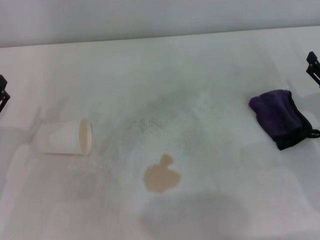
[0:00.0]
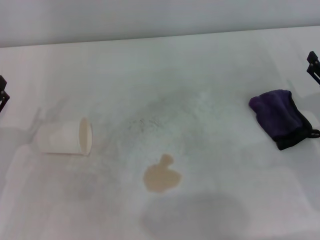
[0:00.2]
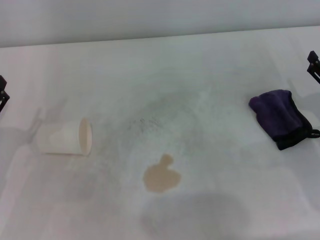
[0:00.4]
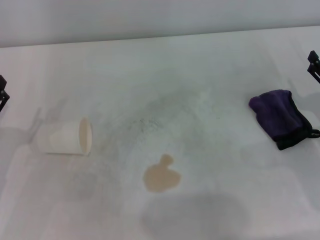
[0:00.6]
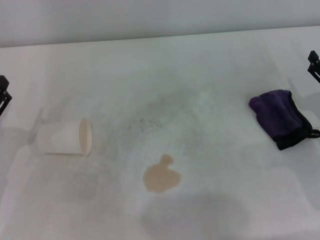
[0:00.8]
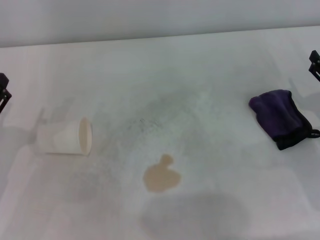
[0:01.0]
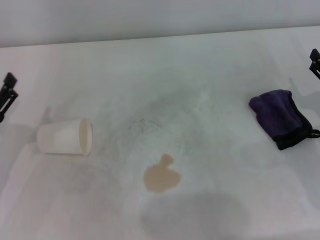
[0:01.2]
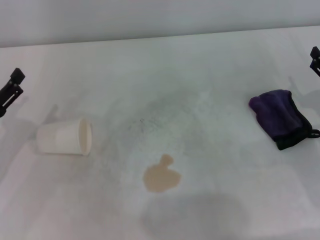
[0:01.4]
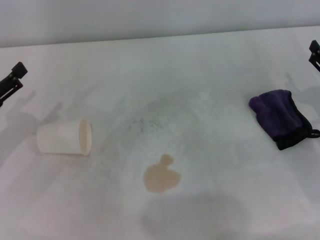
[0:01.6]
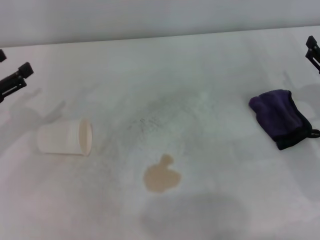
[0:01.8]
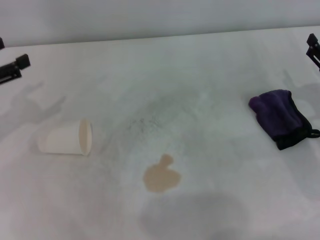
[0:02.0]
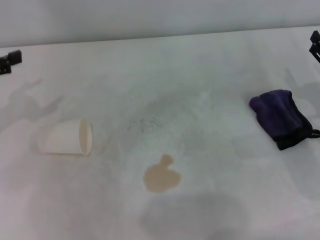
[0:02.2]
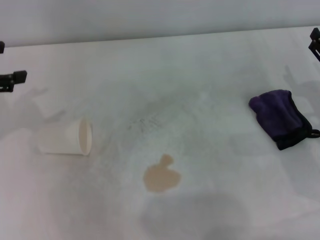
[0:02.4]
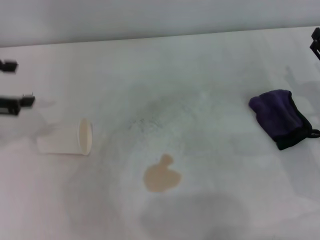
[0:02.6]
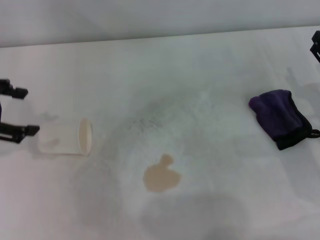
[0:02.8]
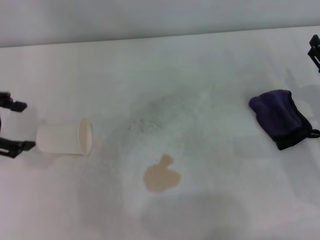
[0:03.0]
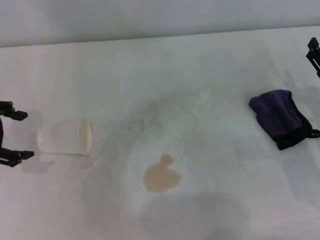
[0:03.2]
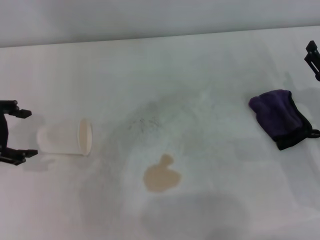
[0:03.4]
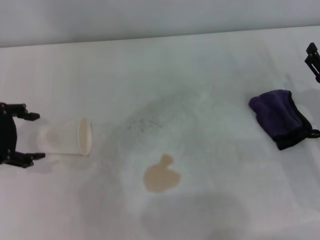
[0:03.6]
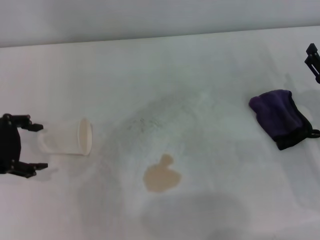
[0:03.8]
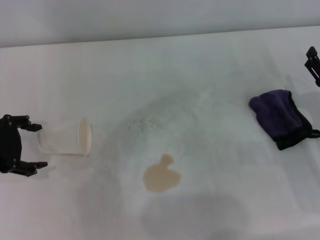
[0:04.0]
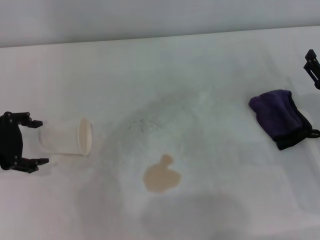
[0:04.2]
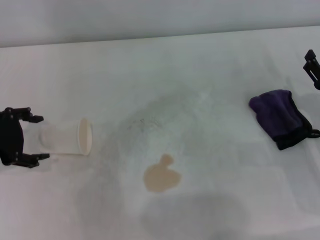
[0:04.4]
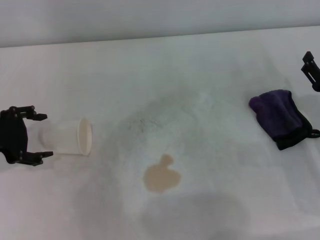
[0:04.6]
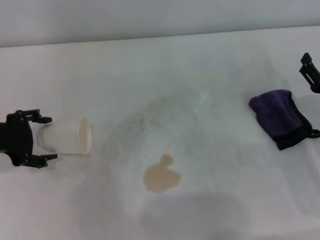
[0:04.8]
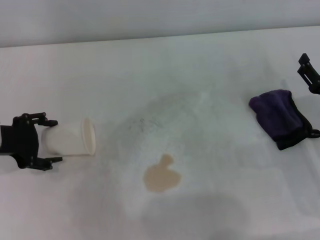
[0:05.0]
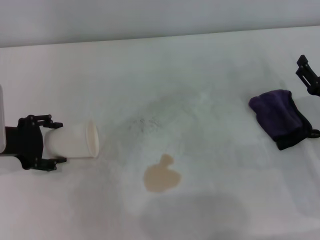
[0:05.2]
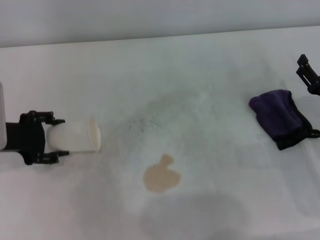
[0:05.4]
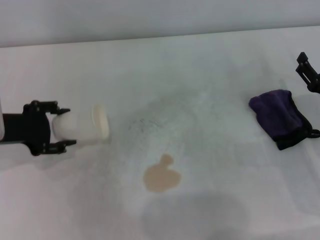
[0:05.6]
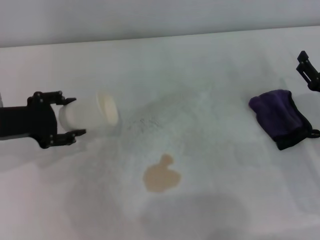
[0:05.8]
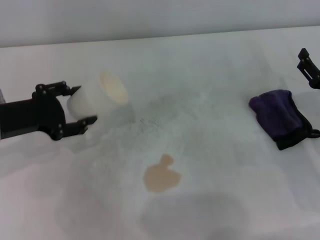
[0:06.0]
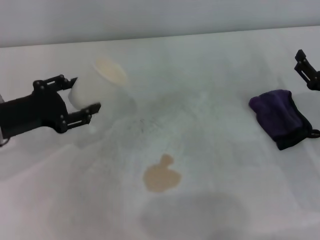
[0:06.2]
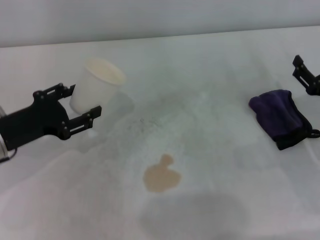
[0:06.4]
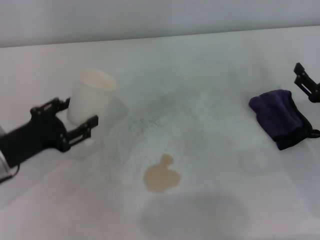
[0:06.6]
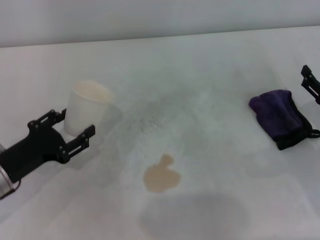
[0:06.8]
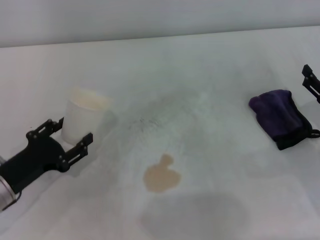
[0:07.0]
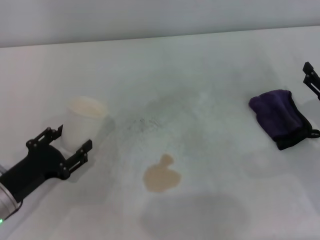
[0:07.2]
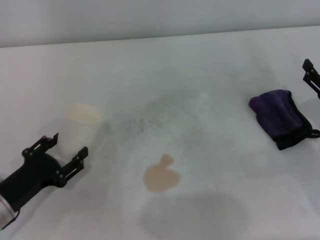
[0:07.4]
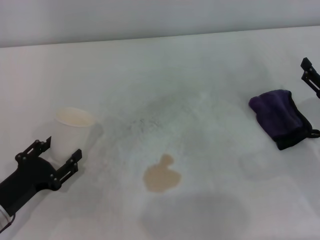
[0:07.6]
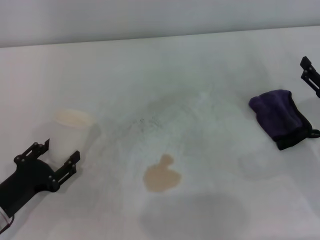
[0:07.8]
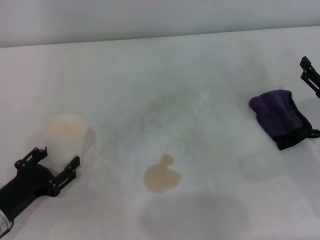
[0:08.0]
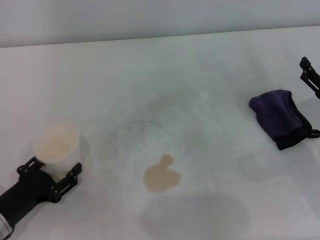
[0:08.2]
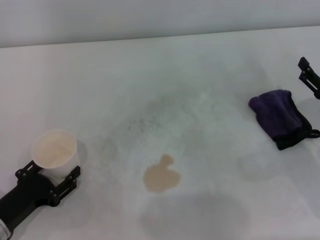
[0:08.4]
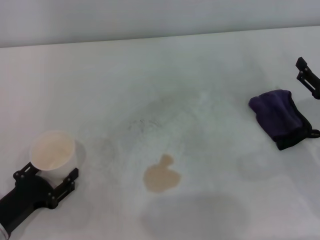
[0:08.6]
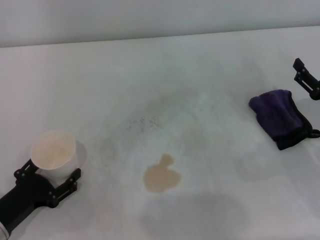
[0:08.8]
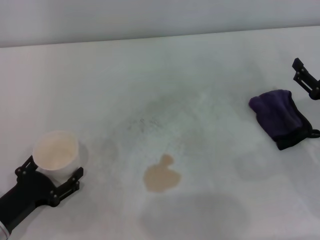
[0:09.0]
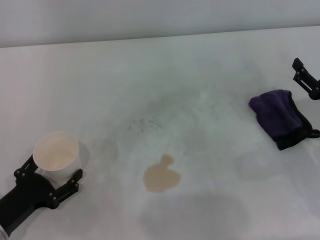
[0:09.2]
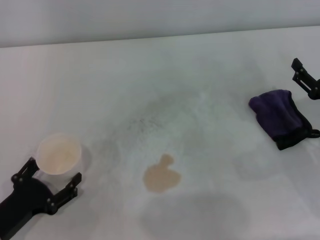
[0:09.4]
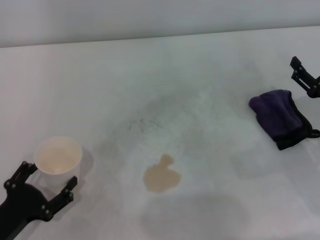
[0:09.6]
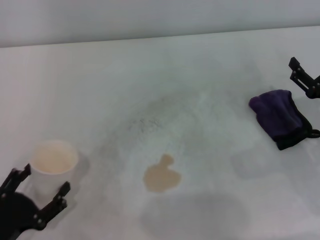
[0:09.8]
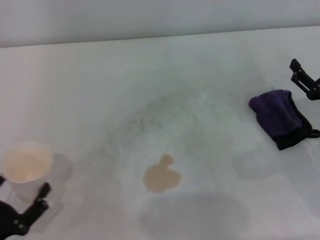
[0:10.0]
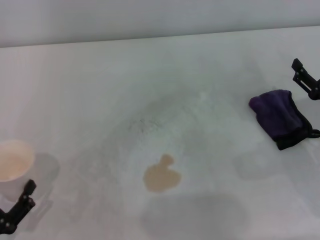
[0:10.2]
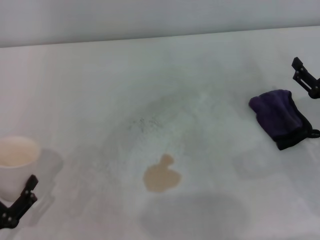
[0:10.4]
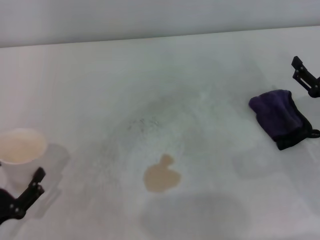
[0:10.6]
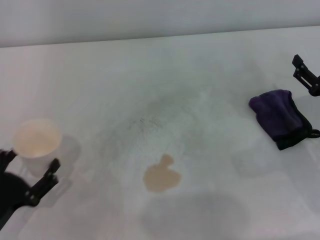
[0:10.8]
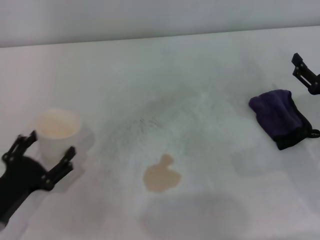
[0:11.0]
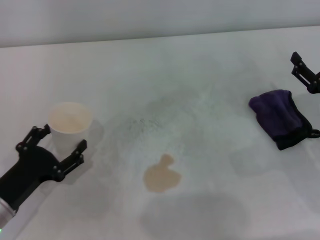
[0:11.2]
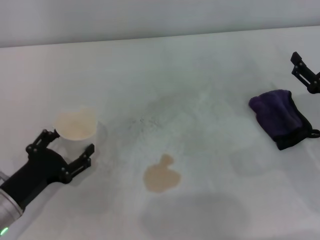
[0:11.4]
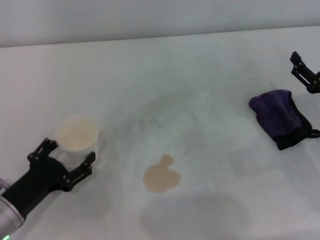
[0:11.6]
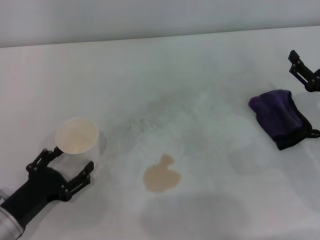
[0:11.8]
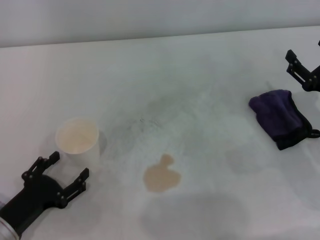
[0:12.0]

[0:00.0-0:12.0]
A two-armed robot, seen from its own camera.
Step, 0:00.0 to 0:05.2: Grasp the paper cup with the left gripper.
Step, 0:05.4 to 0:11.6: Stand the paper cup upright with the left gripper.
0:00.0 to 0:01.6: The left gripper moves about 5 cm.
0:01.6 to 0:03.0: The left gripper goes approximately 15 cm upward.
0:03.0 to 0:04.4: The left gripper is displaced downward by roughly 5 cm.
0:04.4 to 0:06.0: The left gripper closes up.
0:06.0 to 0:07.6: The left gripper is displaced downward and backward by roughly 15 cm.
0:07.6 to 0:09.0: The left gripper opens up.
0:09.0 to 0:10.4: The left gripper is displaced backward by about 10 cm.
0:10.4 to 0:12.0: The left gripper is displaced forward by some 5 cm.

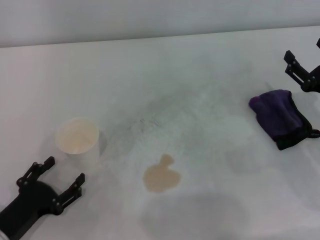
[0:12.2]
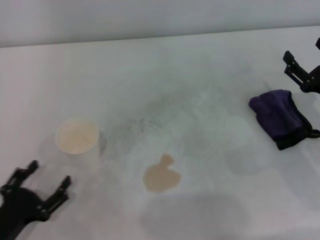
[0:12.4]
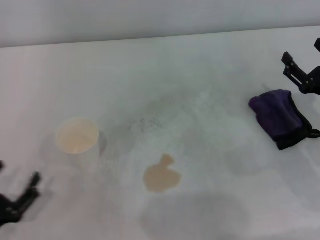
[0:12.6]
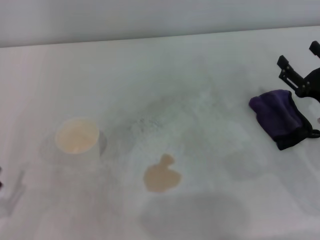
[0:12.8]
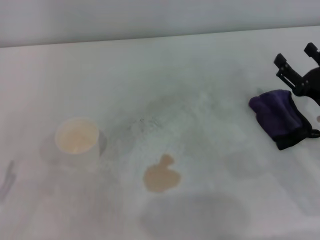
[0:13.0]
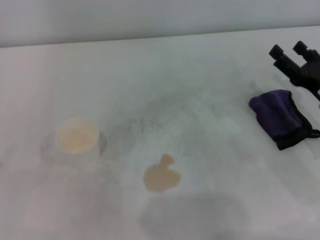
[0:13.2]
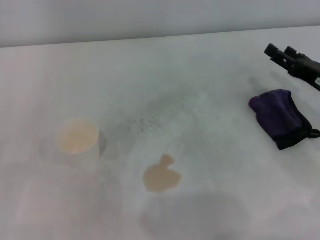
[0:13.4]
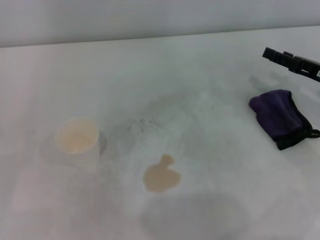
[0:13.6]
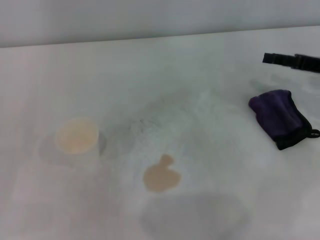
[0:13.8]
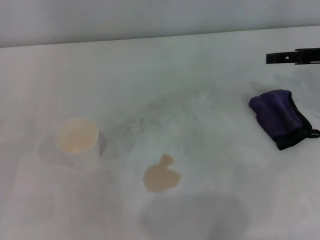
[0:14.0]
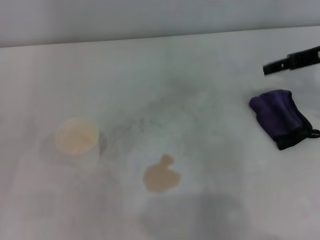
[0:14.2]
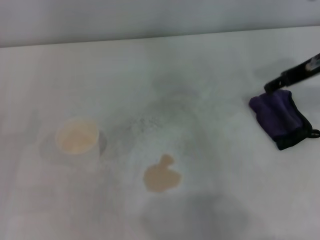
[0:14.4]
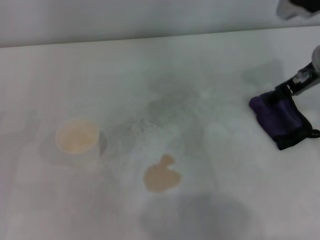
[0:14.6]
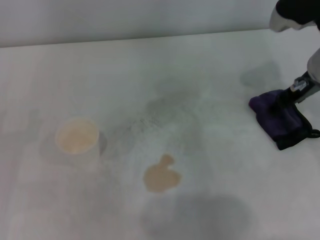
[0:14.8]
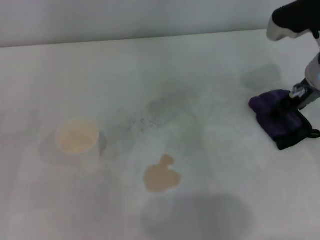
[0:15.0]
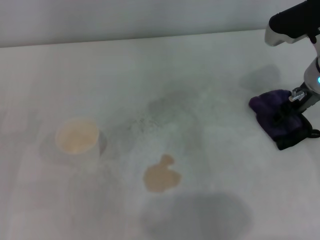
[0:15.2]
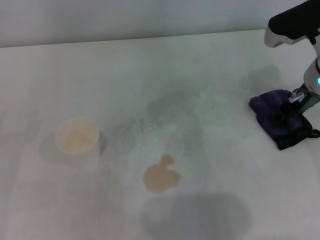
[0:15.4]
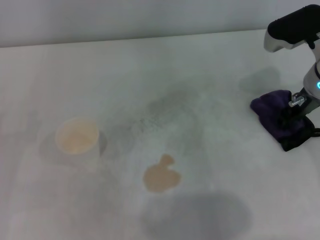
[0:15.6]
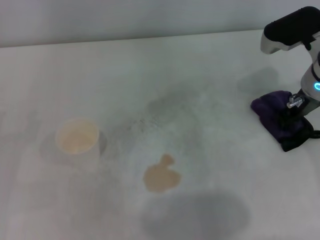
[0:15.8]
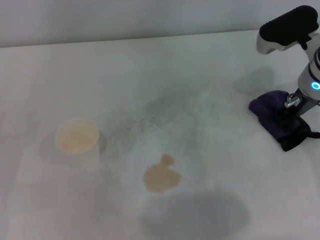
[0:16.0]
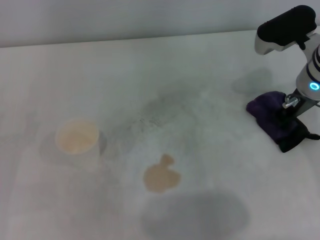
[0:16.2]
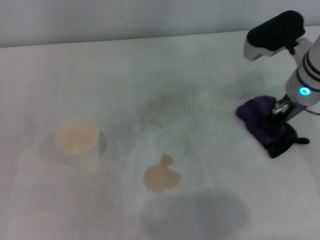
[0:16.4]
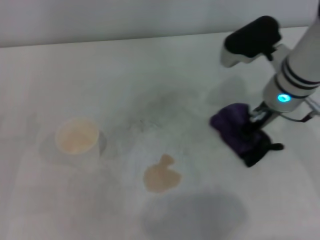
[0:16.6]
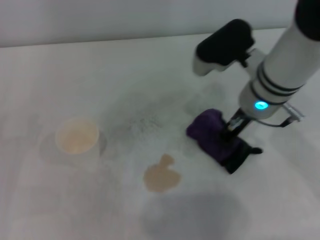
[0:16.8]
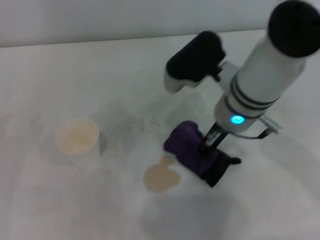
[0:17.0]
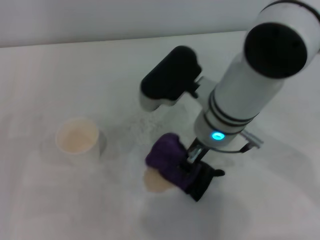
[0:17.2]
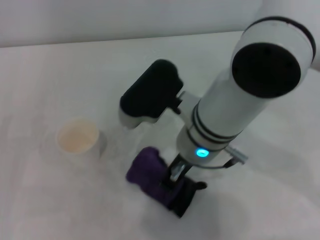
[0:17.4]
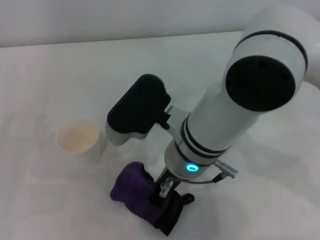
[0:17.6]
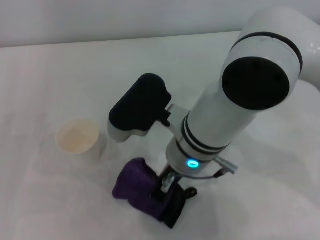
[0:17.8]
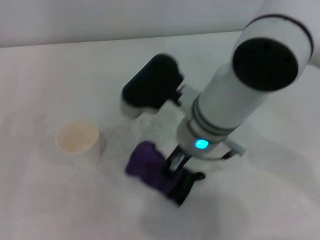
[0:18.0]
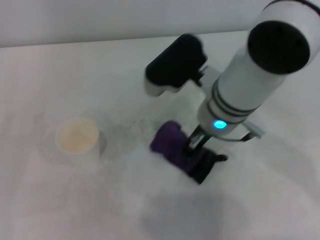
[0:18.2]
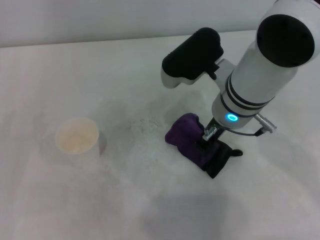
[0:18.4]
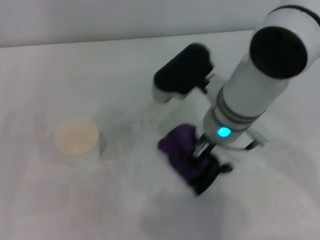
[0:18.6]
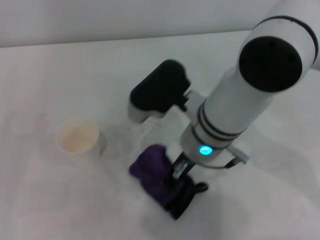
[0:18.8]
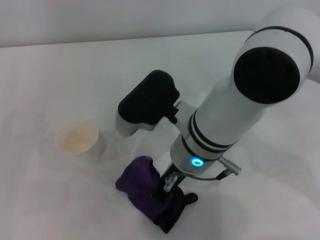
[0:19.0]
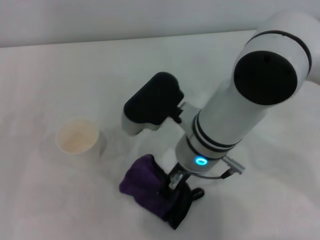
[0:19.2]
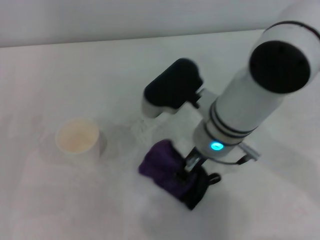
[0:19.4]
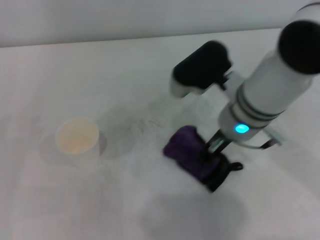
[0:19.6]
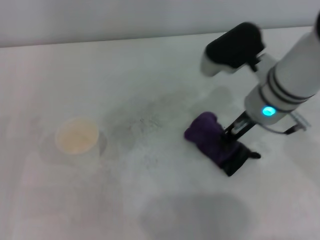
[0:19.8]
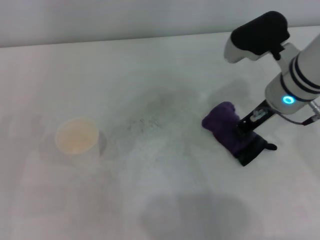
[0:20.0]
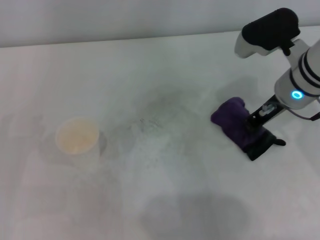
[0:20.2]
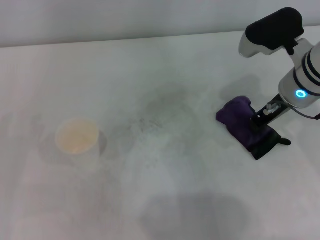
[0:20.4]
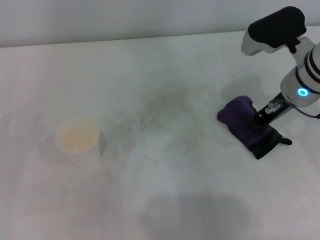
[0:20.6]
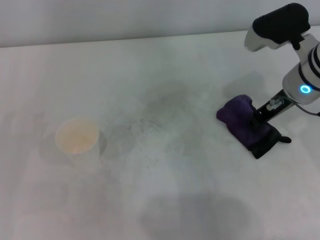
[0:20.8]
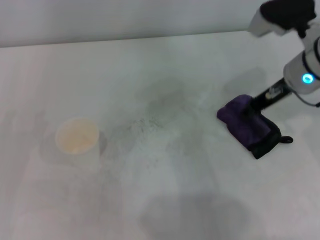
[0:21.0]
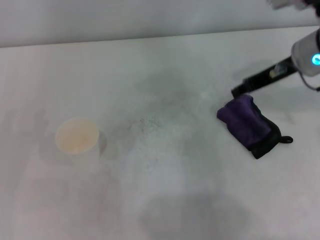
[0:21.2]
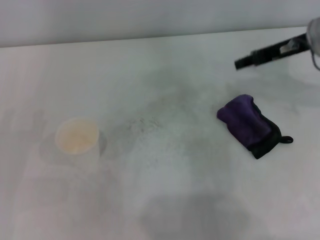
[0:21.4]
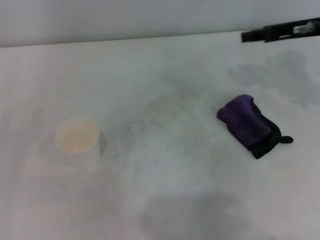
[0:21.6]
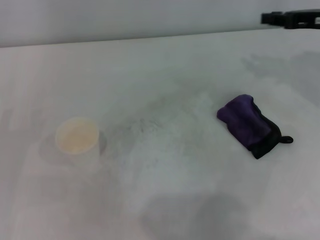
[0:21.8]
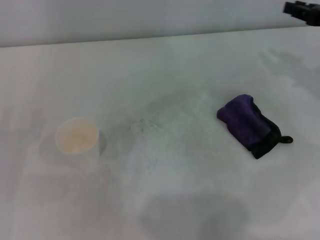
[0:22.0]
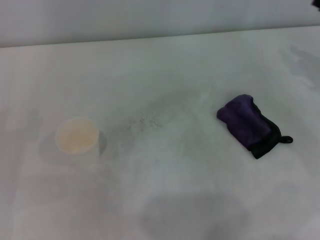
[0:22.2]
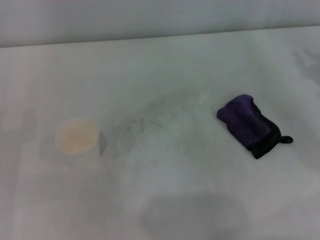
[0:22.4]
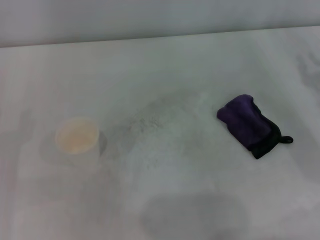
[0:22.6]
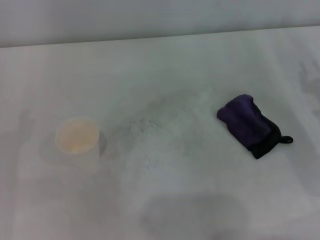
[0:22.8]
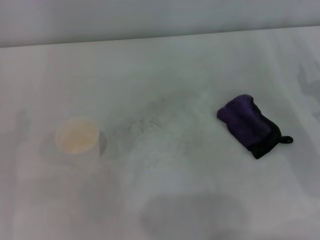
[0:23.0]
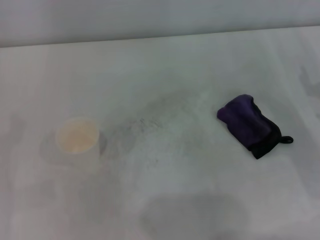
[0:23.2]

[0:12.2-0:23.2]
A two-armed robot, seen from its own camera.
Step, 0:12.2 to 0:16.0: Grasp the rag with the right gripper.
Step, 0:16.2 to 0:20.0: Wipe the stains off the table with the right gripper.
Step, 0:20.4 to 0:20.8: Place the rag on the table with the right gripper.
0:12.2 to 0:13.8: The left gripper is displaced to the left and upward by some 10 cm. Meanwhile the right gripper travels forward and upward by approximately 10 cm.
0:13.8 to 0:15.4: The right gripper moves to the left, approximately 10 cm.
0:15.4 to 0:17.0: The right gripper heads to the left, covering some 15 cm, and closes up.
0:18.4 to 0:20.0: The right gripper moves to the right, approximately 10 cm.
0:20.0 to 0:21.6: The right gripper goes approximately 10 cm to the right.
0:21.6 to 0:23.2: The right gripper travels downward, backward and to the right by roughly 20 cm.
